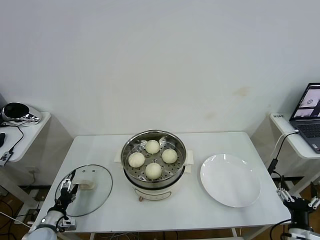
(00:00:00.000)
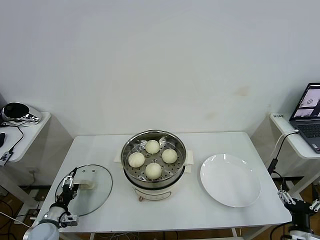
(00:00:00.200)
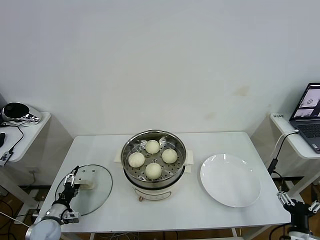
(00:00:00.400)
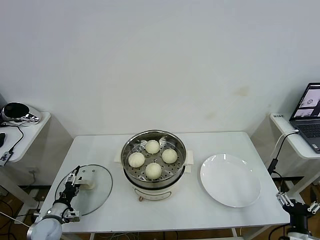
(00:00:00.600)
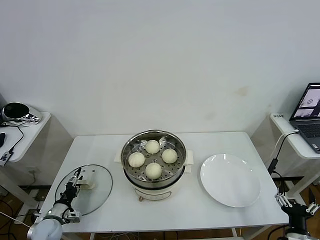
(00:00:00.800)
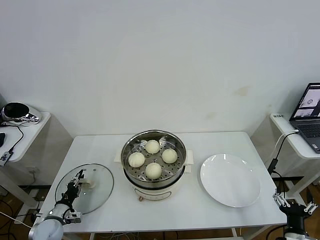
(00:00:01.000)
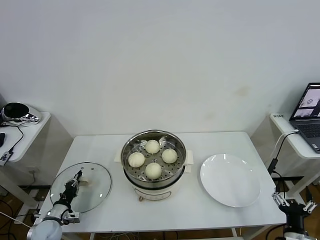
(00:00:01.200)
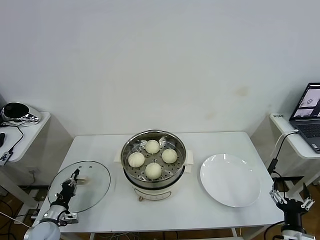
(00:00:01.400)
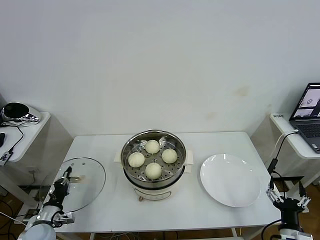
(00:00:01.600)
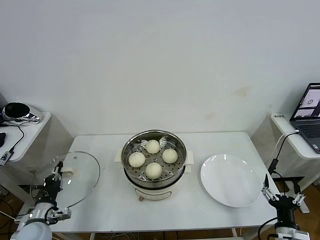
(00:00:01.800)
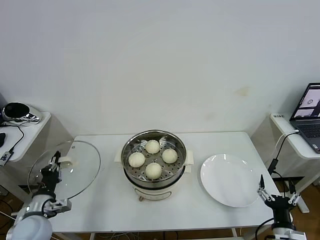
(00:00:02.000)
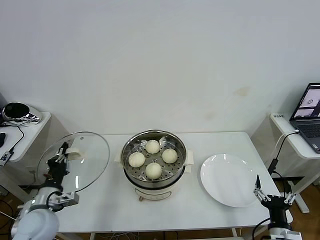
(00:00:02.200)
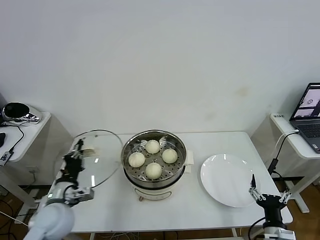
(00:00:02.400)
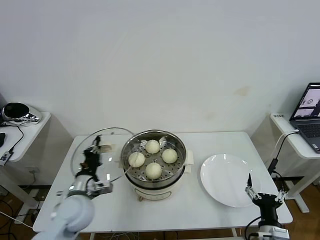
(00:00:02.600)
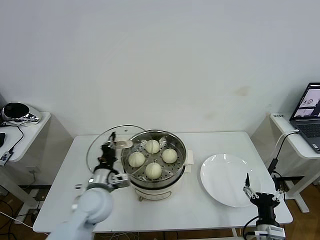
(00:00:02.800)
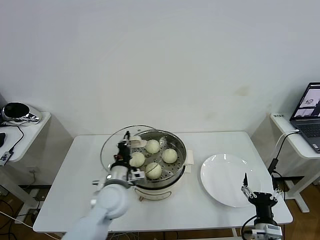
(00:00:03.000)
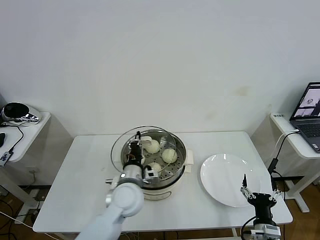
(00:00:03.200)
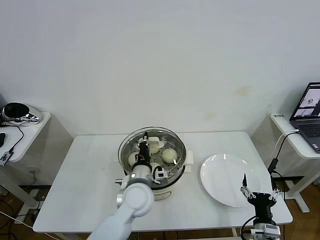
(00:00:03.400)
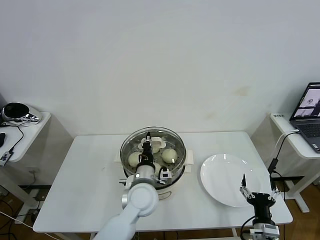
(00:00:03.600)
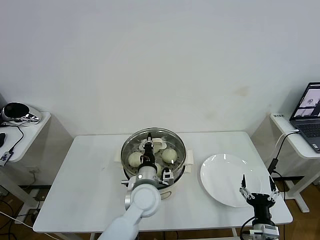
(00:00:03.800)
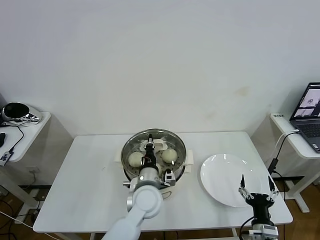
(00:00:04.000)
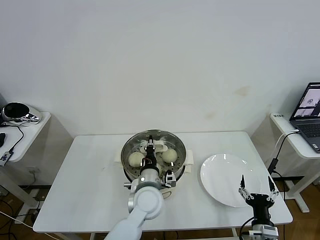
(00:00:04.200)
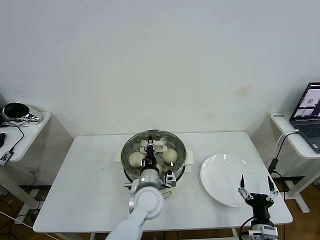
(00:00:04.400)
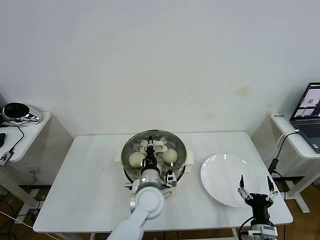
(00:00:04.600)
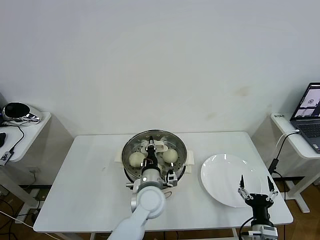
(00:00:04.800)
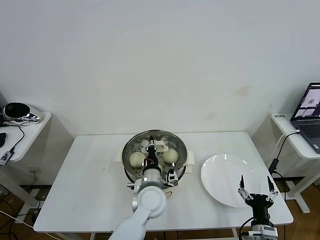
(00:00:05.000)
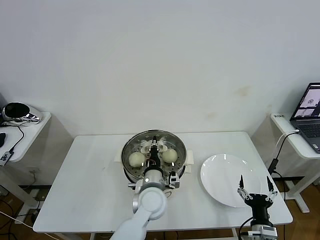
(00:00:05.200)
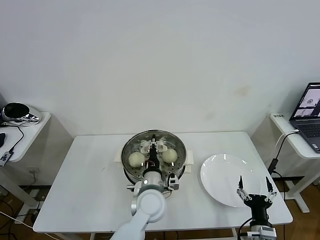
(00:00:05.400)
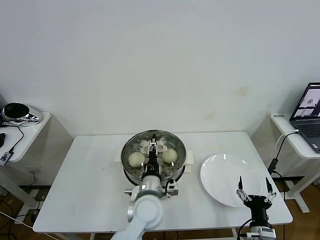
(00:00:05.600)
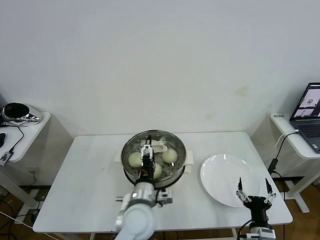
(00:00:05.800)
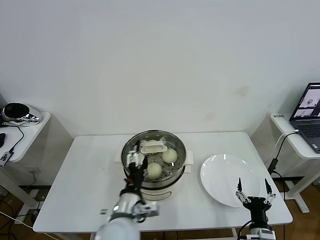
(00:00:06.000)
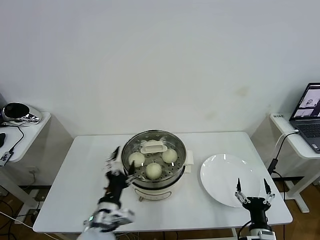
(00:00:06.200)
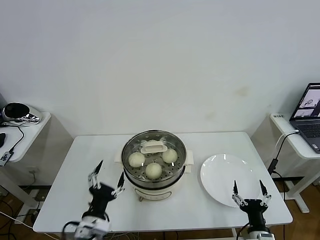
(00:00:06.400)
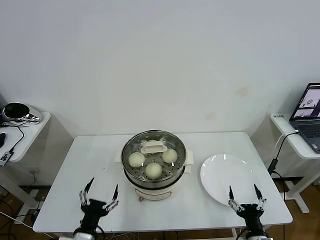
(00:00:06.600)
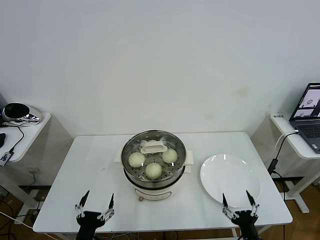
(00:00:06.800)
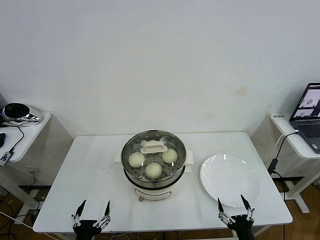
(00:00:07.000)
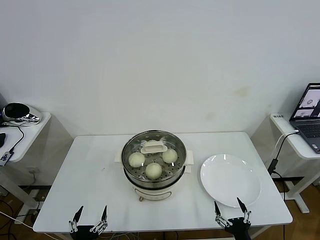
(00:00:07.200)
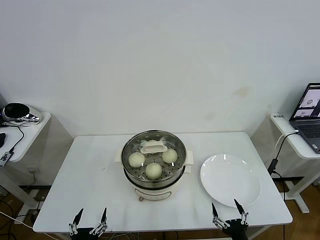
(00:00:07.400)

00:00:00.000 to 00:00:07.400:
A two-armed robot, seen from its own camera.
Task of the whole recording: take steamed baozi put them in steamer then cover it.
Step, 00:00:01.600 to 00:00:05.600: Place the pot lid on the steamer with left gripper.
00:00:00.000 to 00:00:01.400: The left gripper closes its fingers.
00:00:01.400 to 00:00:03.000: The left gripper travels to the right and upward by roughly 30 cm. The right gripper shifts some 5 cm to the left.
00:00:03.000 to 00:00:04.400: The left gripper goes some 10 cm to the right.
00:00:04.400 to 00:00:06.000: The left gripper heads backward, covering approximately 10 cm, and opens.
00:00:06.000 to 00:00:07.400: The right gripper heads backward, covering about 5 cm, while the left gripper travels to the left, backward and downward by some 25 cm.
